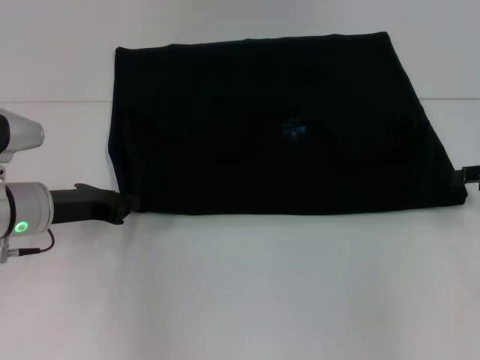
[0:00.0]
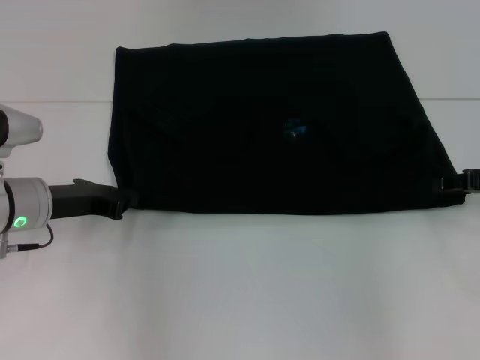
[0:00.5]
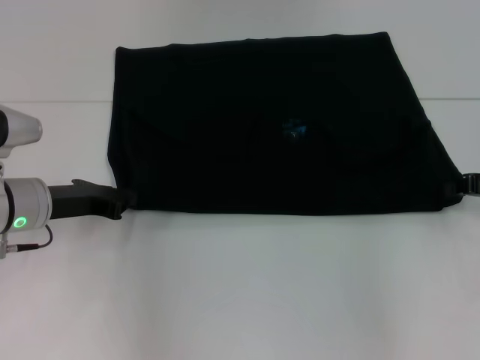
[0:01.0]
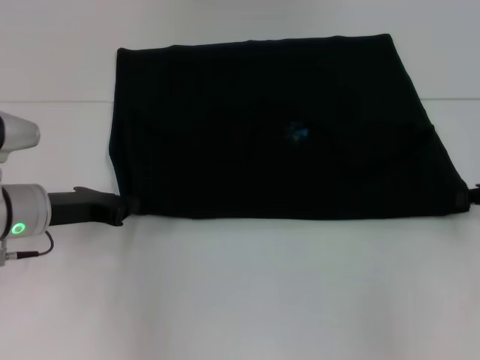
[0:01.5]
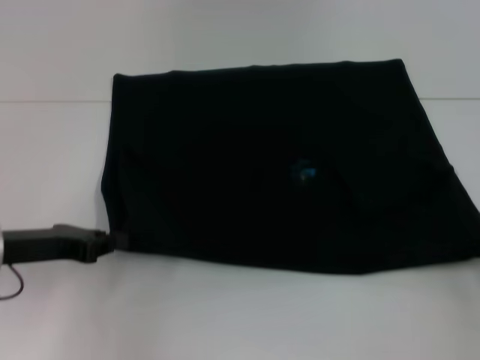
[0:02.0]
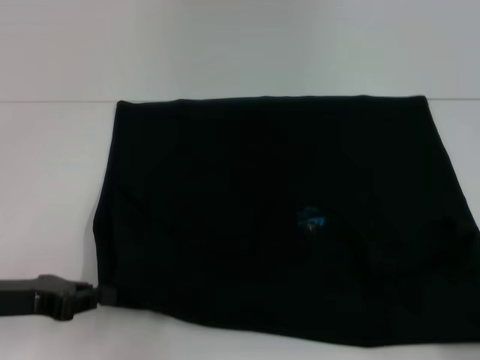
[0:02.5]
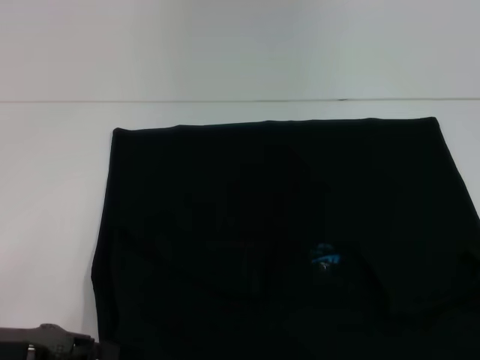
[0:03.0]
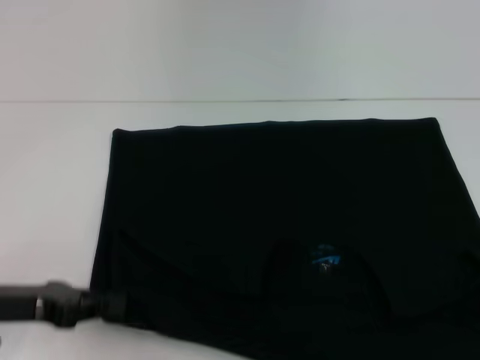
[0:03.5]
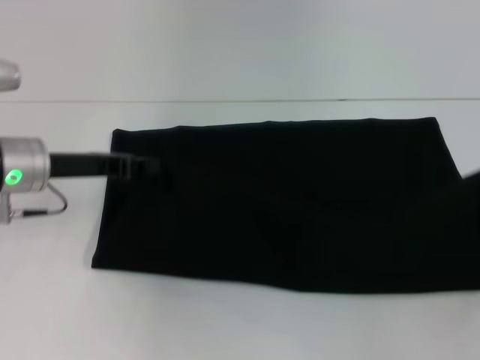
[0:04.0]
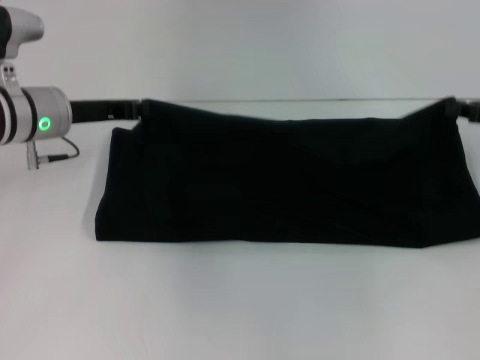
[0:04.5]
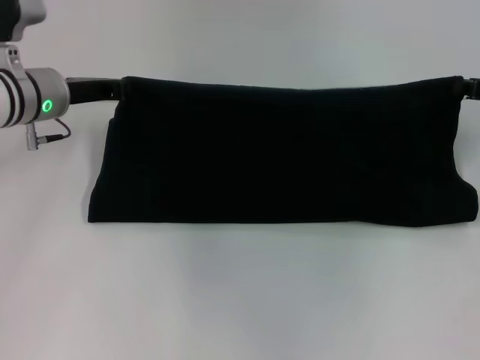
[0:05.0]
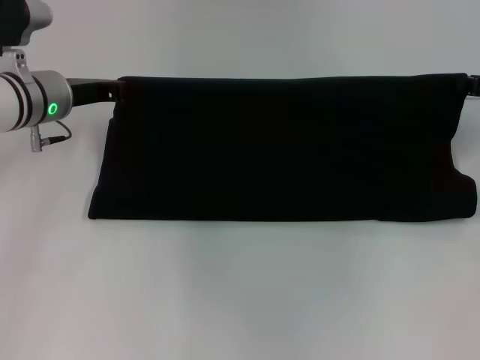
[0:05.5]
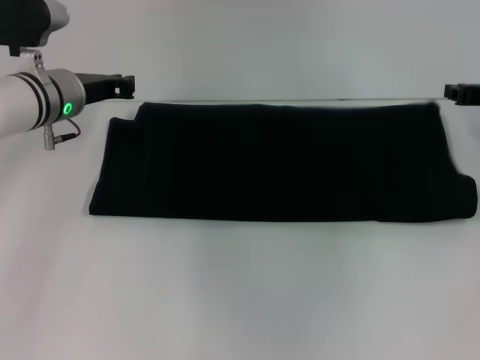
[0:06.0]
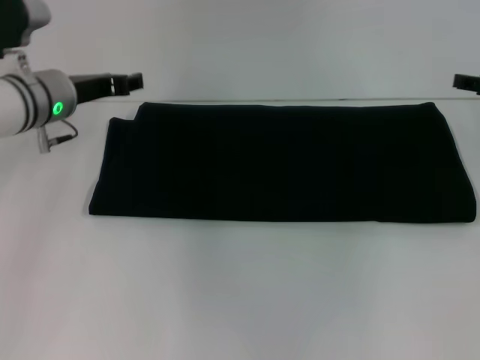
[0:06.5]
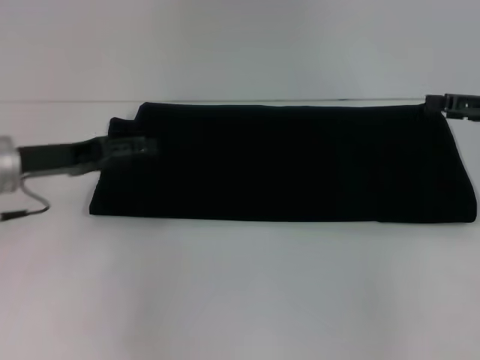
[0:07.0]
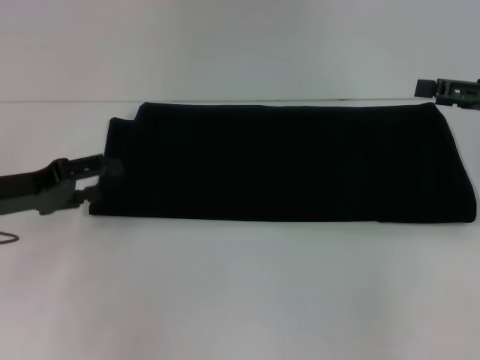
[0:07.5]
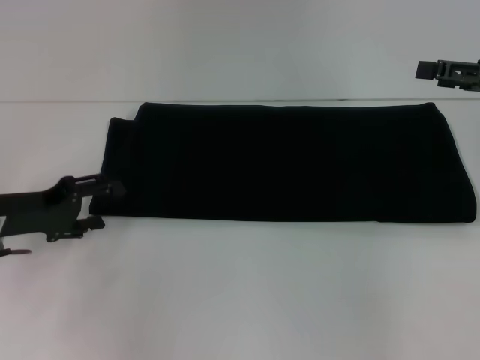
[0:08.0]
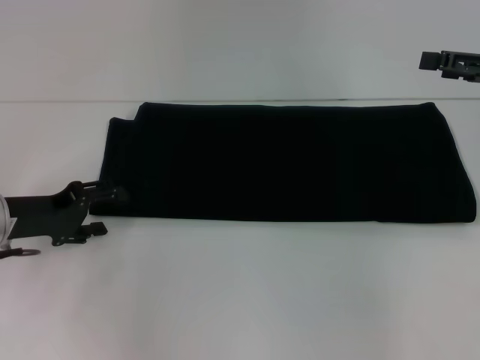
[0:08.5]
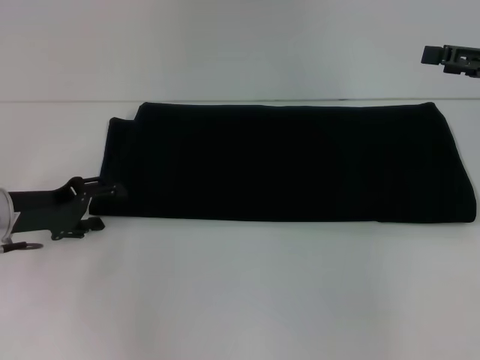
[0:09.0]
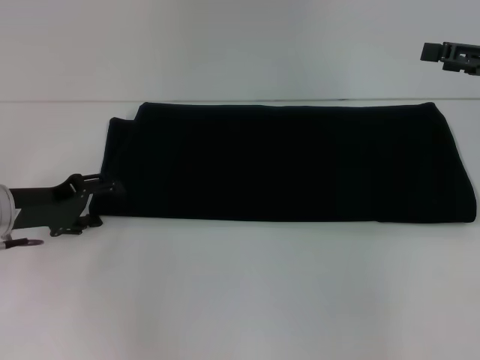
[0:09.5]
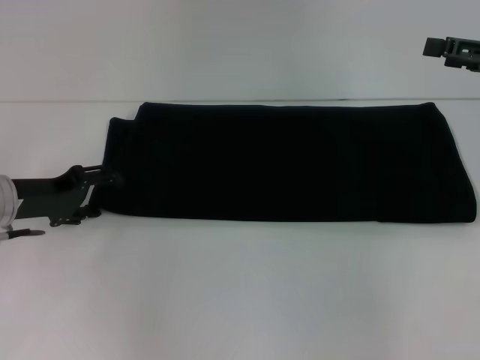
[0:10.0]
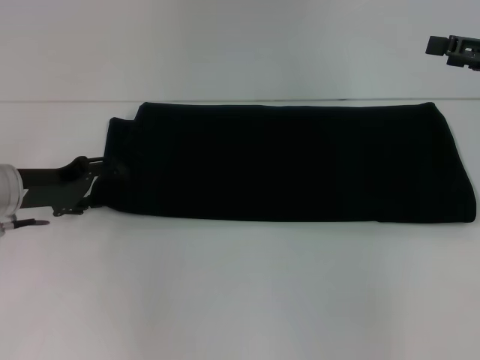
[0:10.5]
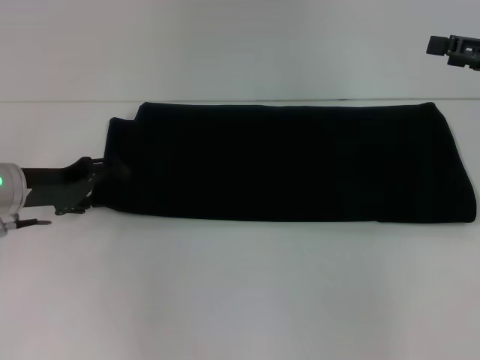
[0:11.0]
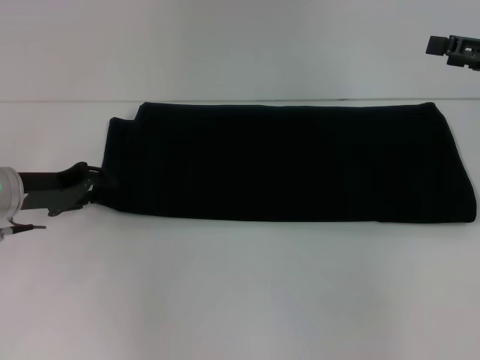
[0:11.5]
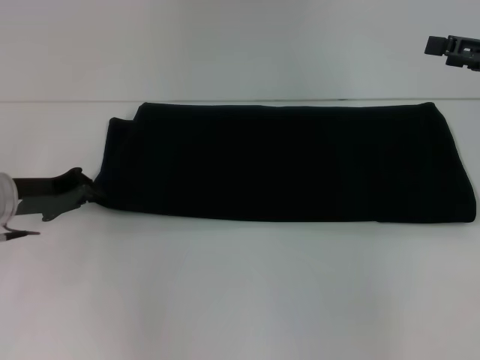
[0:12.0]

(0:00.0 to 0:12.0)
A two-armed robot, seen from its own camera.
Step, 0:00.0 - 0:03.0: Pull the clothes with your left hand.
Step, 0:00.0 - 0:03.0: Pull the clothes with your right hand.
Step, 0:03.5 - 0:06.0: Fold the clothes with your right hand.
0:00.0 - 0:02.0: The right gripper shifts about 10 cm backward, and closes its fingers. Meanwhile the left gripper shifts by some 5 cm.
0:02.0 - 0:04.0: The right gripper travels backward and back again, approximately 15 cm each way. The left gripper travels forward by some 5 cm.
0:04.0 - 0:06.0: The left gripper travels forward by about 10 cm, while the right gripper shifts roughly 15 cm forward and to the left.
0:06.0 - 0:08.0: The left gripper moves backward and to the left, some 15 cm, and opens; the right gripper shifts some 5 cm upward, and opens up.
0:08.0 - 0:10.0: The grippers stay close to where they were, moving slightly.
0:10.0 - 0:12.0: The left gripper closes up.

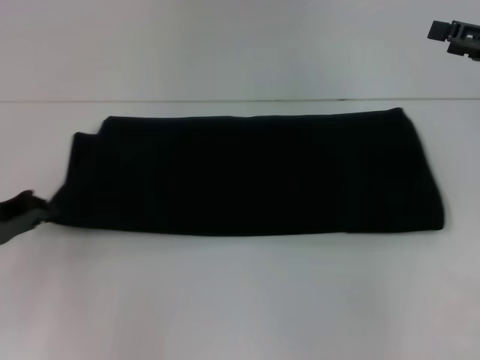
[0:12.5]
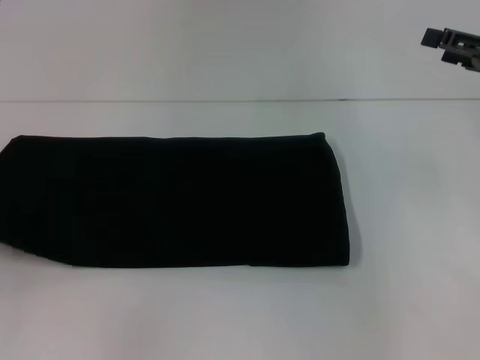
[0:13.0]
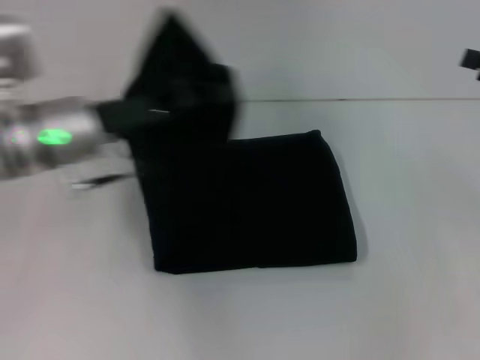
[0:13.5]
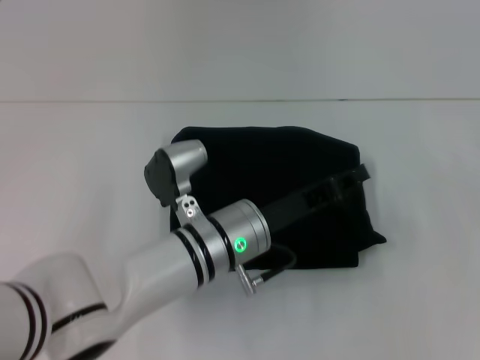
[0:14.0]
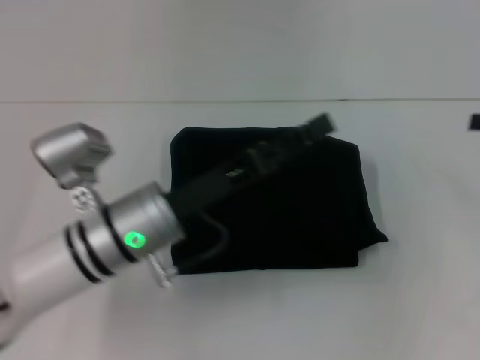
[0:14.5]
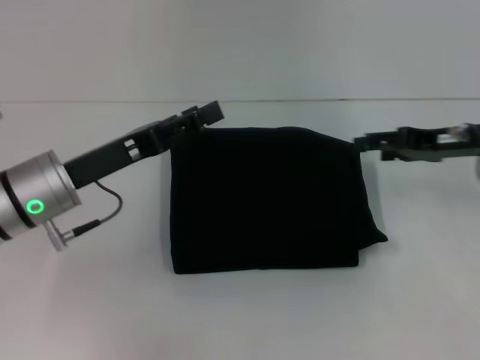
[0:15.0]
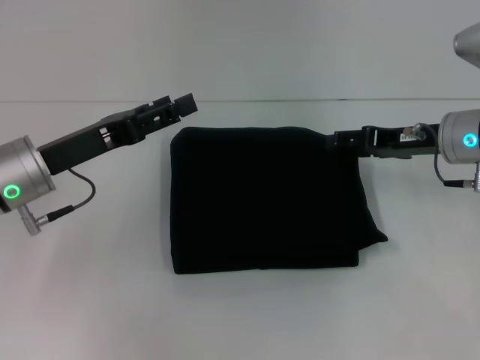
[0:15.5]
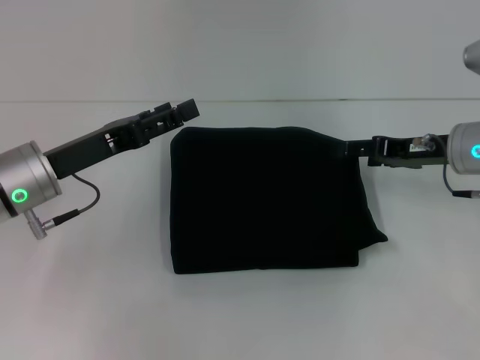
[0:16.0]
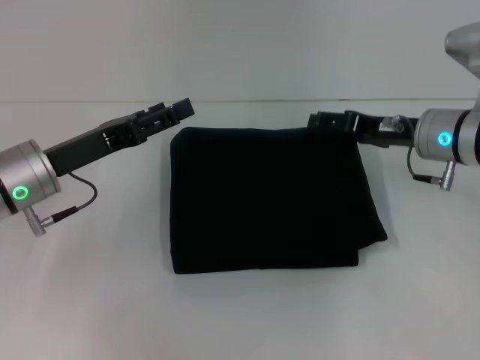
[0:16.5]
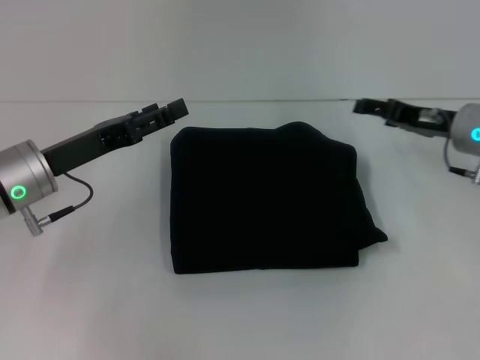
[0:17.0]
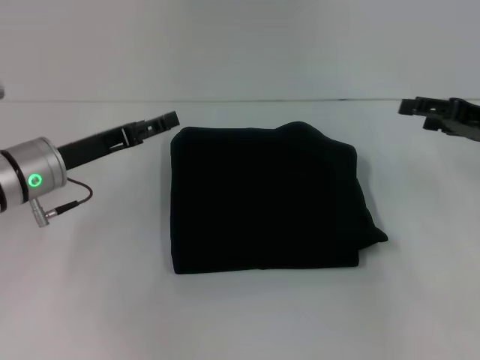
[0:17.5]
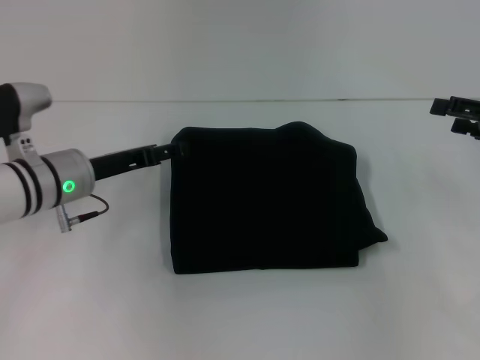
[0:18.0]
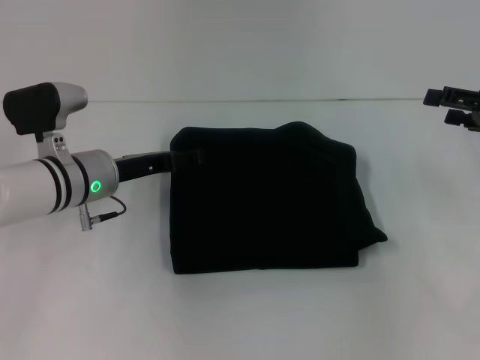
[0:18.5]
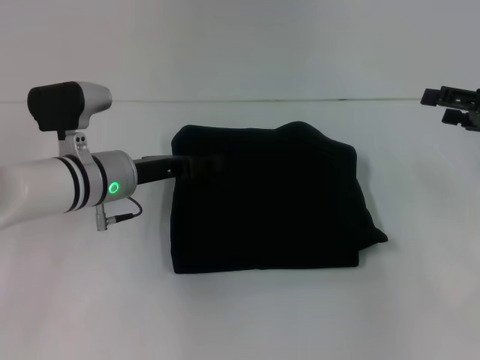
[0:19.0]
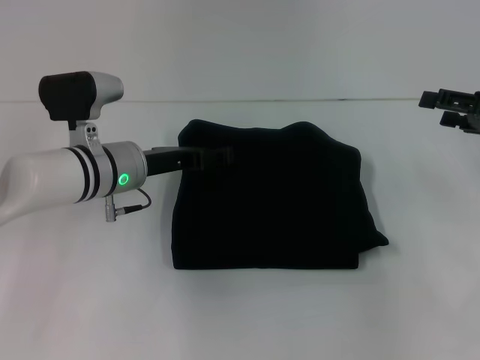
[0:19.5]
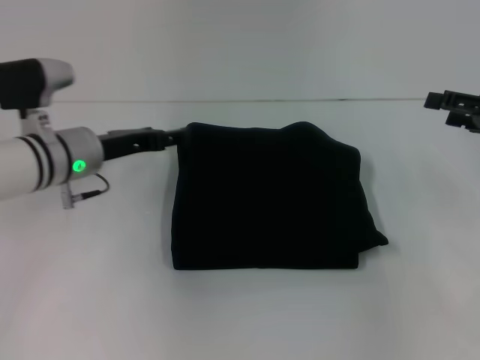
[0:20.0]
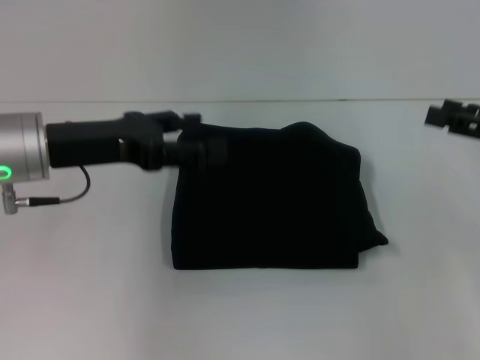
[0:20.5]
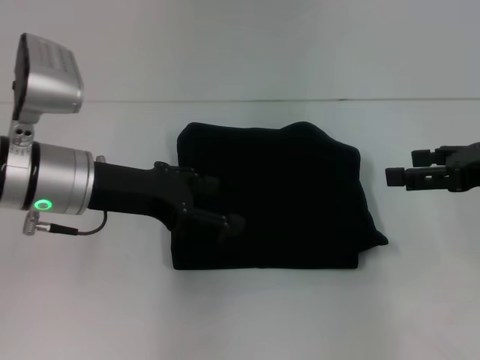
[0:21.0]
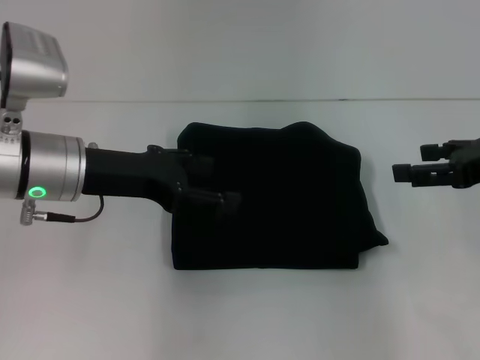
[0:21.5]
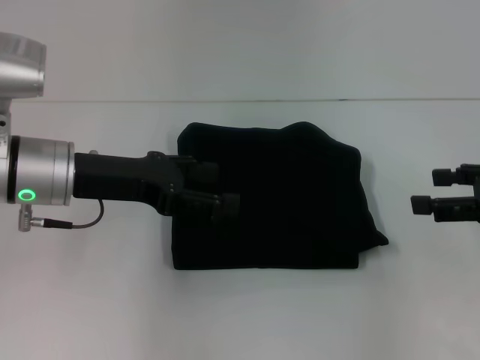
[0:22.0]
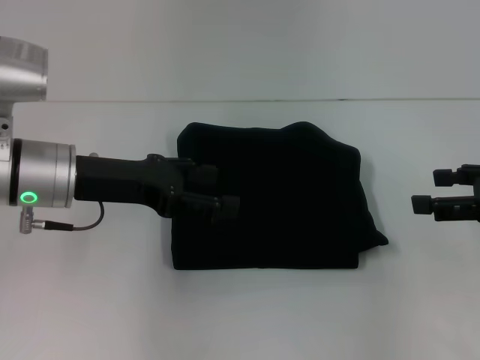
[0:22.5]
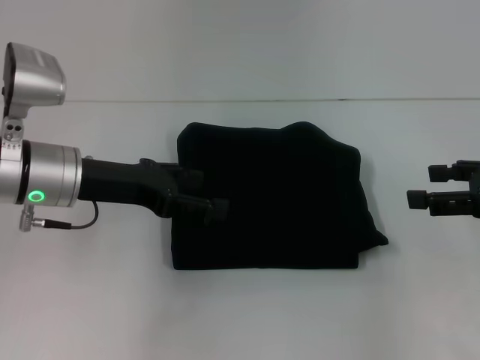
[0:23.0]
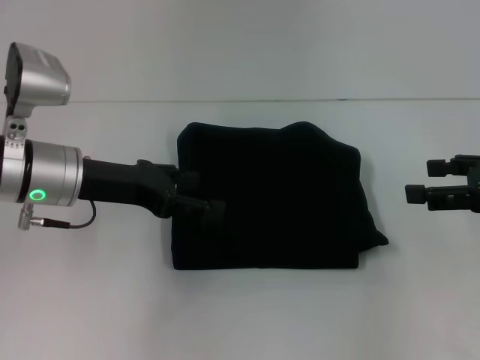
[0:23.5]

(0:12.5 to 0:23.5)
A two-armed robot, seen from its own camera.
0:12.5 - 0:14.5: The left gripper swings left and right, roughly 40 cm each way, with 2 reversals, and opens its fingers.
0:14.5 - 0:16.0: The left gripper heads to the left, covering some 10 cm, and opens. The right gripper is displaced to the left and downward by approximately 15 cm.
0:16.0 - 0:18.0: The right gripper heads to the right, covering approximately 10 cm. The left gripper shifts by about 5 cm.
0:18.0 - 0:20.0: The grippers stay close to where they were, moving slightly.
0:20.0 - 0:21.5: The right gripper ends up some 10 cm from where it was. Meanwhile the left gripper heads upward and backward, covering some 10 cm.
0:21.5 - 0:23.5: The grippers make only small movements.

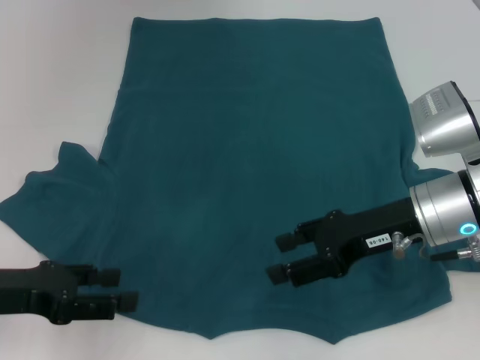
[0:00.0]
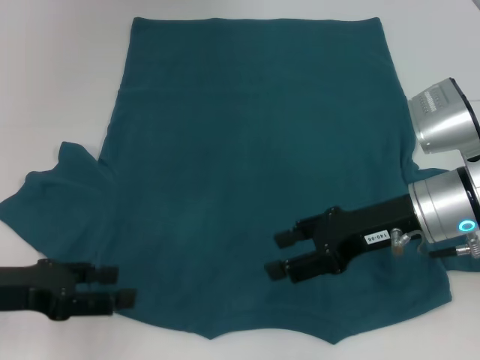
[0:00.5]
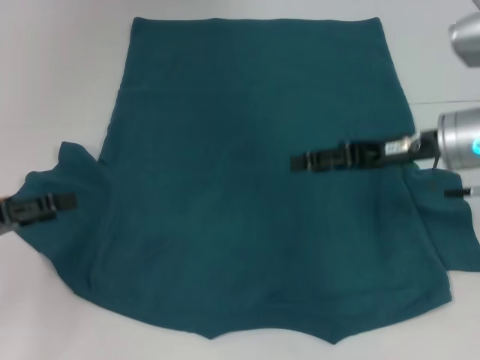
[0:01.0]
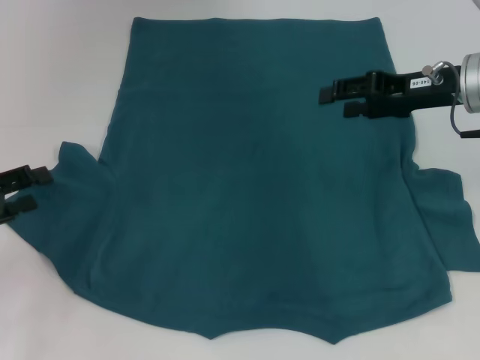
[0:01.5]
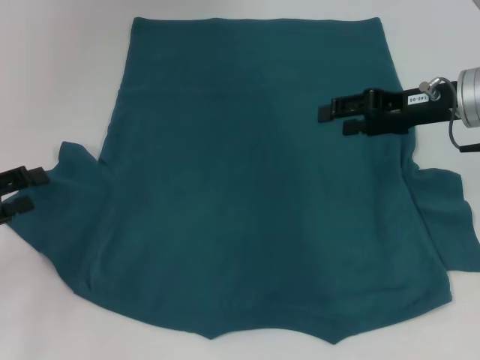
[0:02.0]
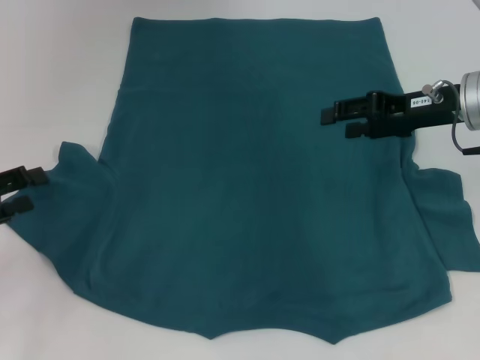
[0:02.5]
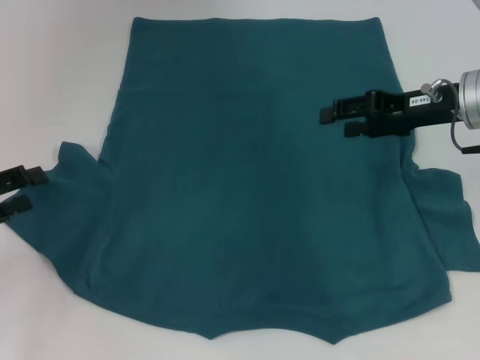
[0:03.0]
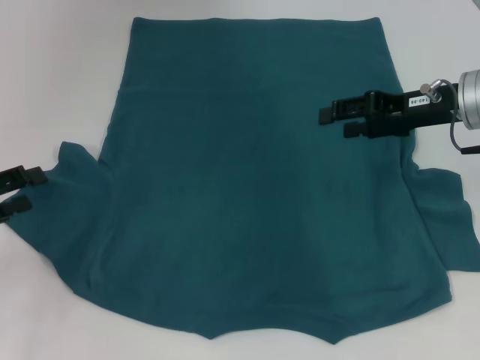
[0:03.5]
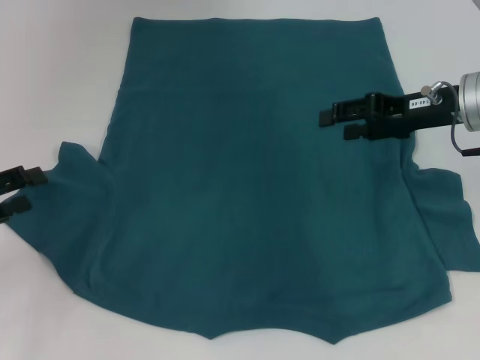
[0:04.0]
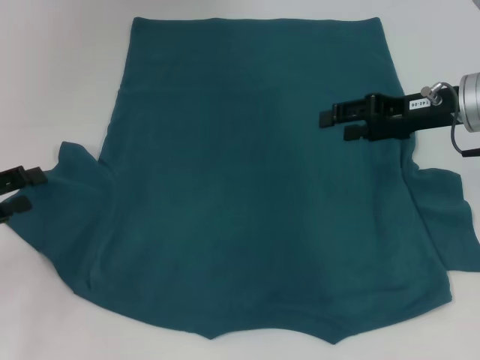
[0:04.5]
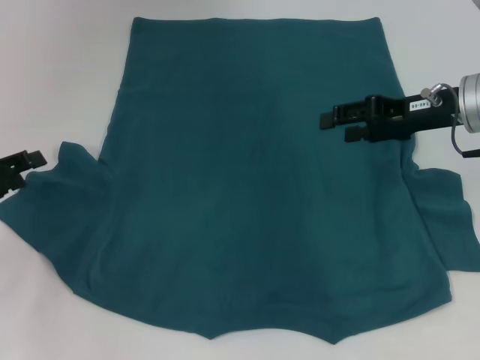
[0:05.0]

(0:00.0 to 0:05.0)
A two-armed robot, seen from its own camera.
0:00.0 - 0:02.5: The left gripper shifts roughly 5 cm to the left. Meanwhile the right gripper moves forward and to the right, approximately 10 cm.
0:02.5 - 0:05.0: The grippers make only small movements.
